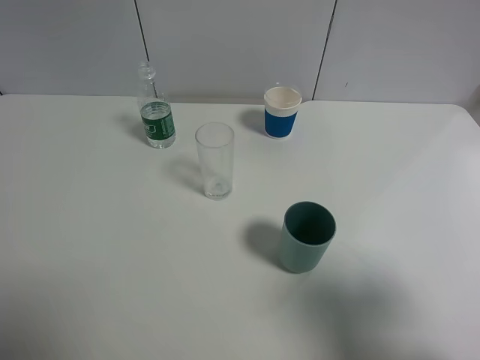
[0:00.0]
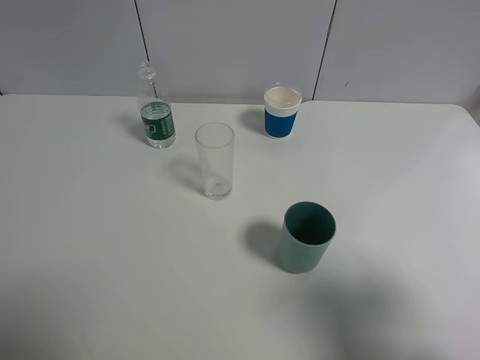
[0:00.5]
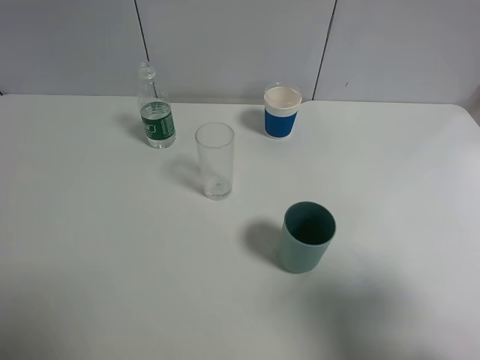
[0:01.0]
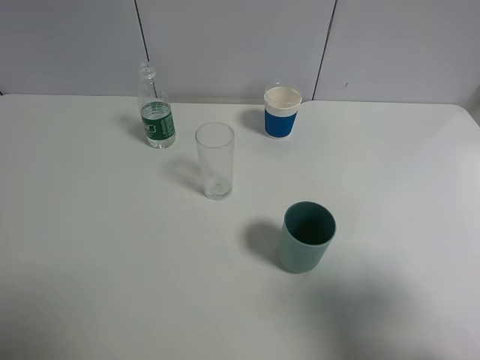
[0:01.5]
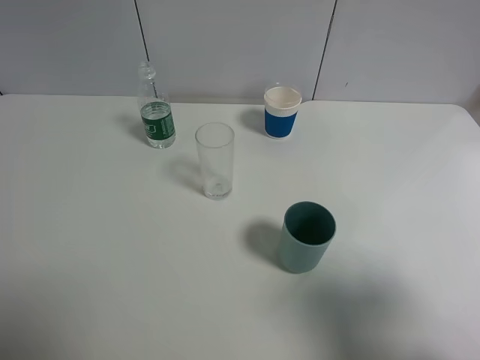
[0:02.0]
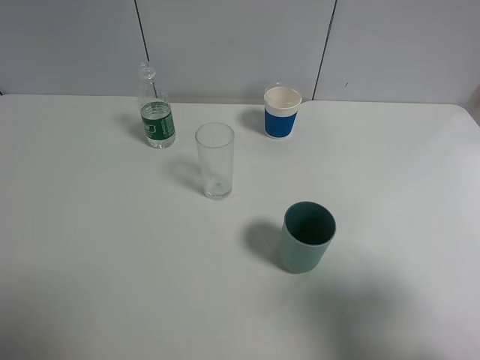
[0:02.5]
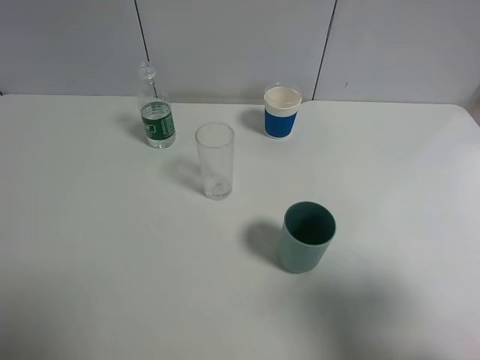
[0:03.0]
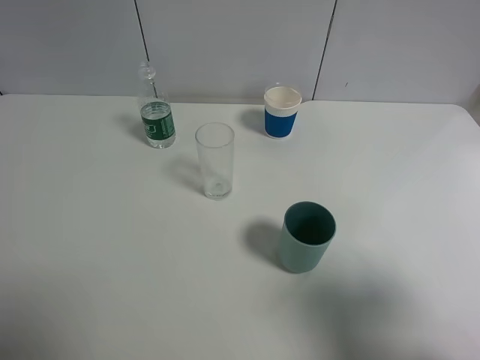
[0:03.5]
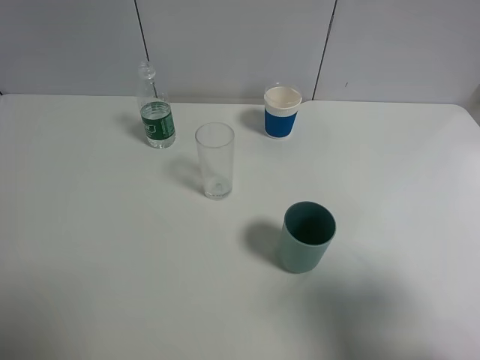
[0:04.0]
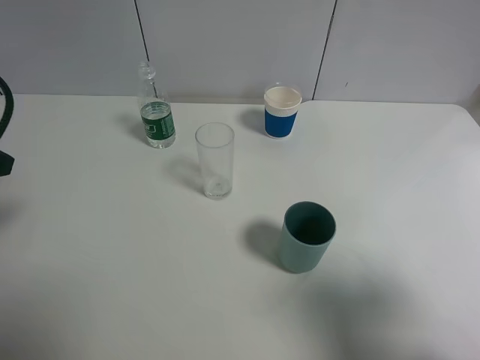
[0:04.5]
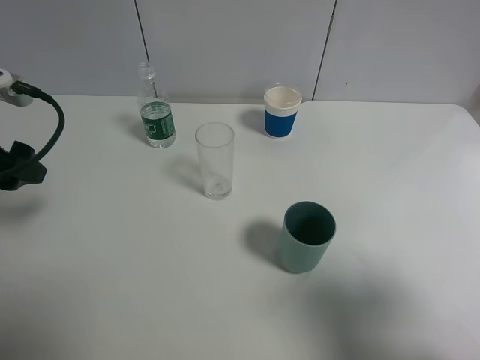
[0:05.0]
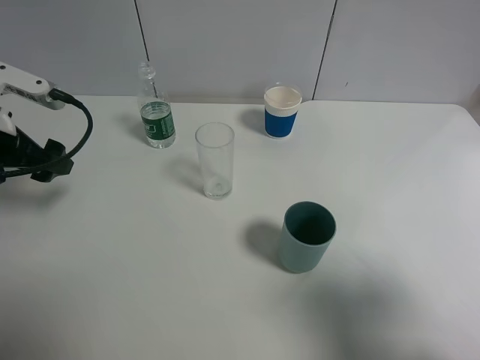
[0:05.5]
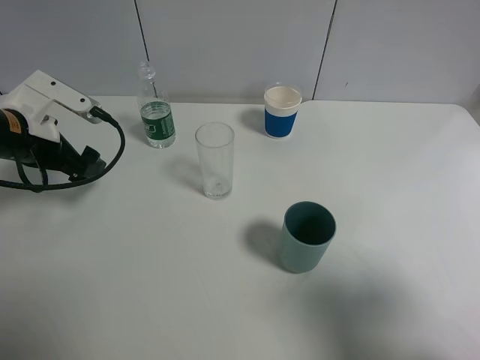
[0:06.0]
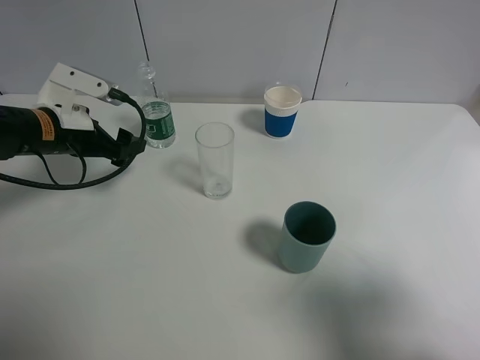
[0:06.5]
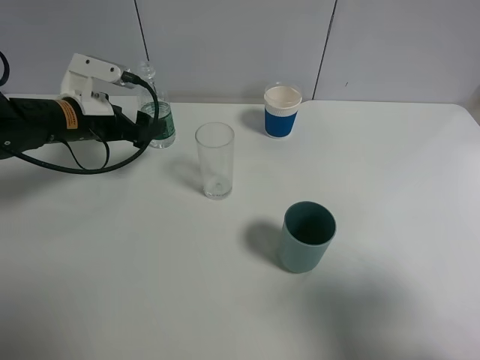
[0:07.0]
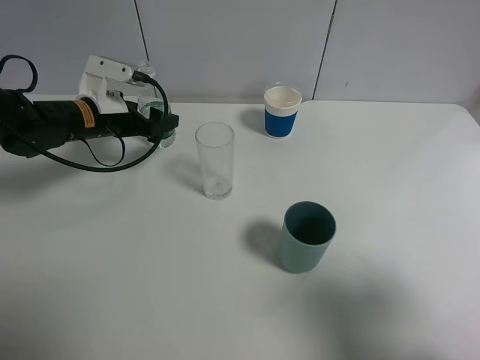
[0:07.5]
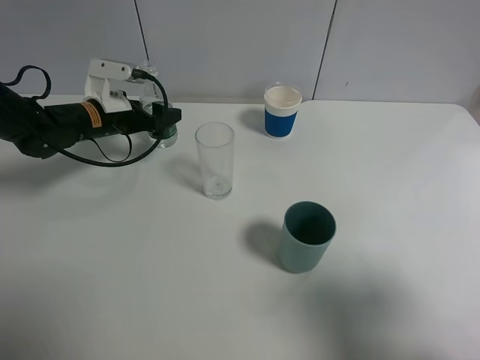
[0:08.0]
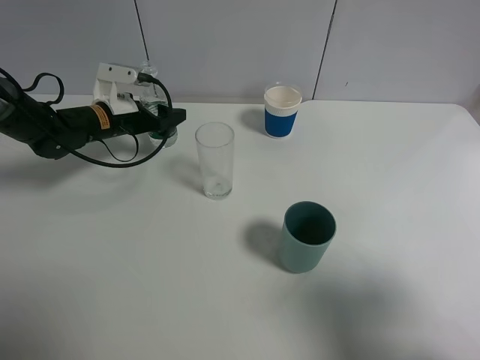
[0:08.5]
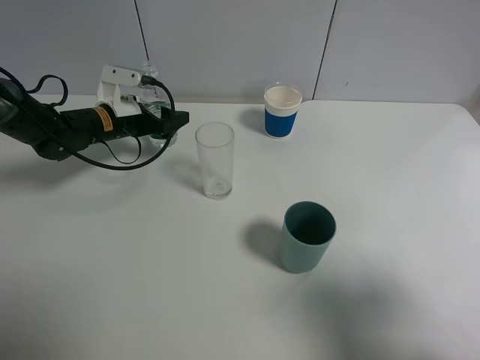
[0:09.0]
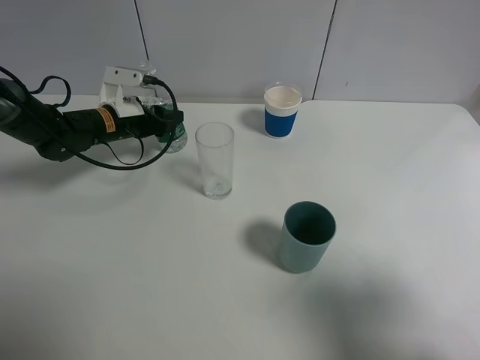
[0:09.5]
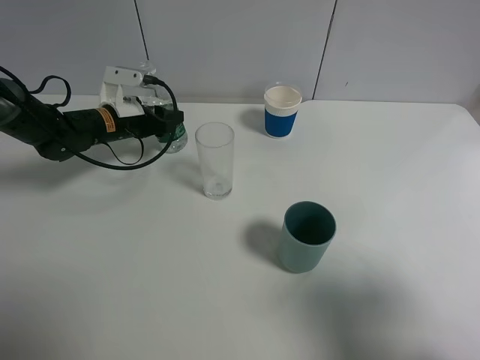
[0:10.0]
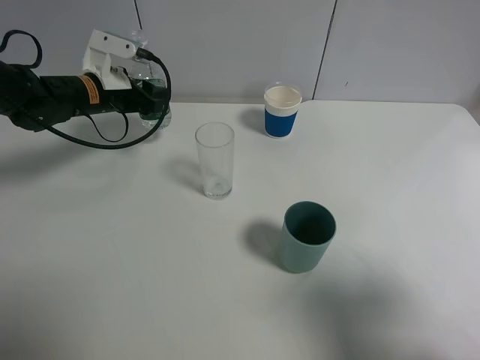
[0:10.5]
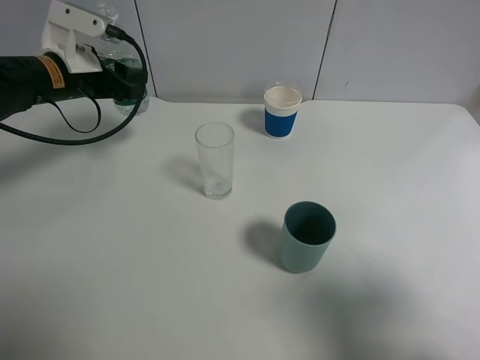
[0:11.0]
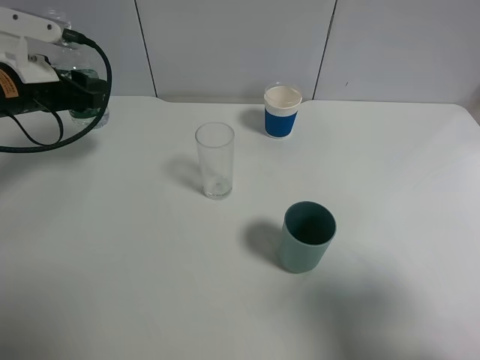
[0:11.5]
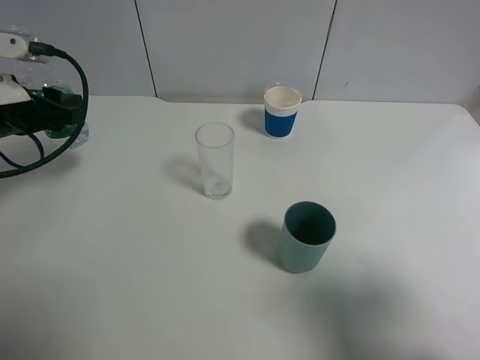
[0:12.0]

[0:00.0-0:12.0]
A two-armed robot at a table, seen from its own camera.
Task of the whole recording: use a gripper to hold the bottle of the drink and pour it into a random cup.
Step, 0:00.0 to 0:09.5: Grasp the mineral water bottle with the left gripper.
0:00.0 to 0:02.0: Both grippers stay put.
0:04.0 to 0:06.0: The left gripper shifts approximately 20 cm forward and downward.
0:06.0 to 0:08.0: The left gripper goes roughly 10 cm forward and downward.
0:08.0 to 0:10.0: The left gripper closes.
0:10.0 to 0:12.0: The left gripper heads backward, upward and to the left, covering about 20 cm.

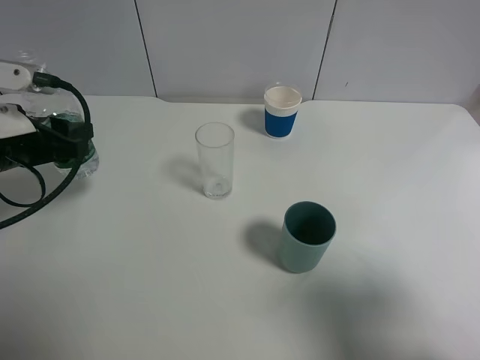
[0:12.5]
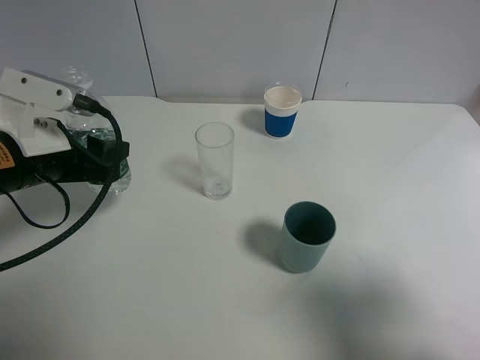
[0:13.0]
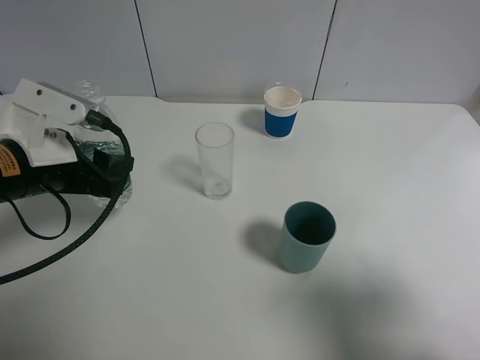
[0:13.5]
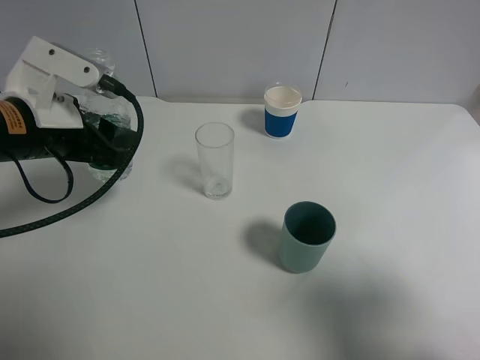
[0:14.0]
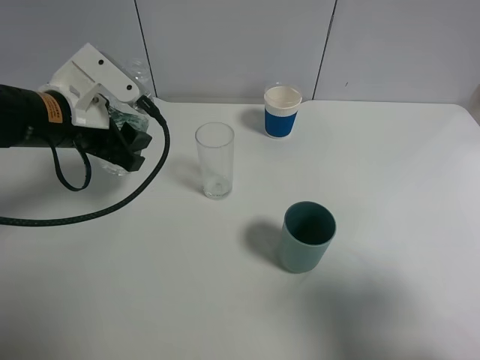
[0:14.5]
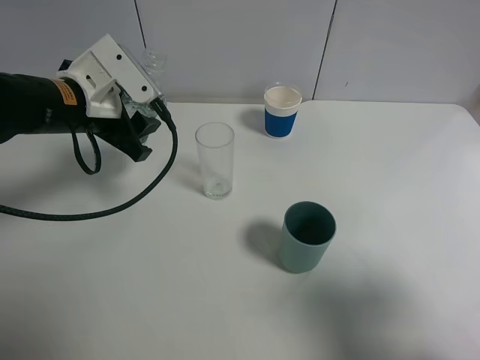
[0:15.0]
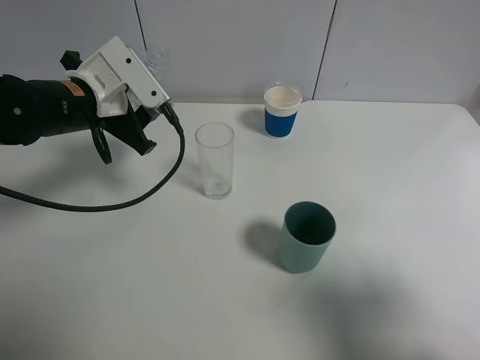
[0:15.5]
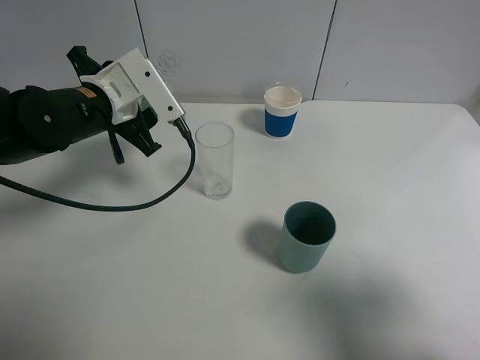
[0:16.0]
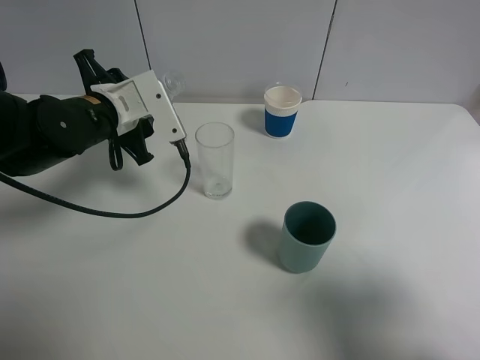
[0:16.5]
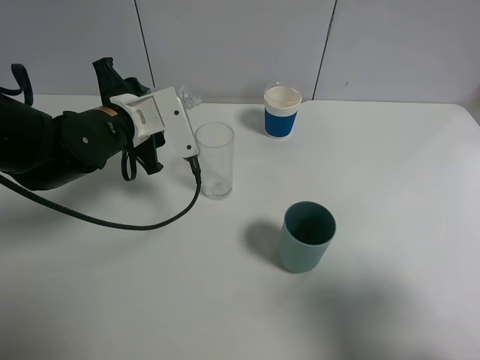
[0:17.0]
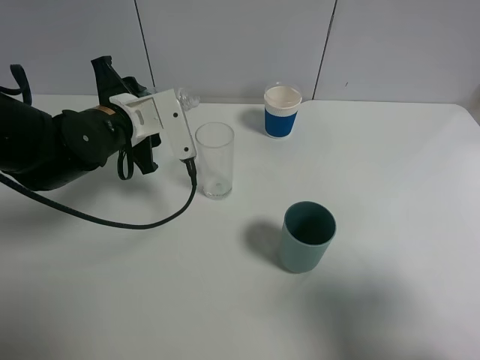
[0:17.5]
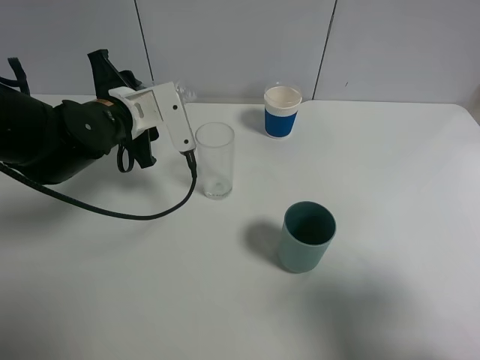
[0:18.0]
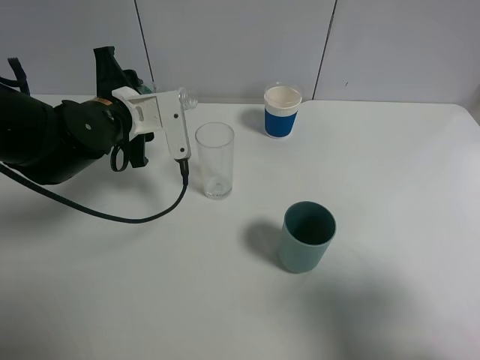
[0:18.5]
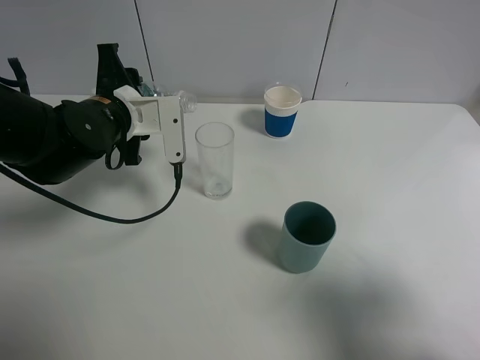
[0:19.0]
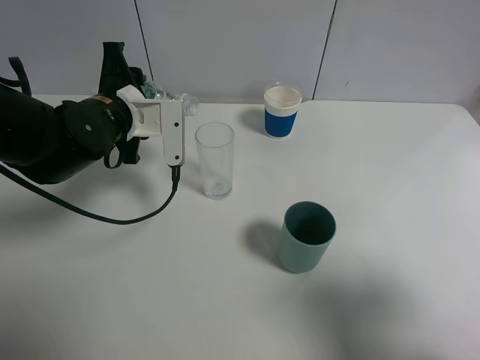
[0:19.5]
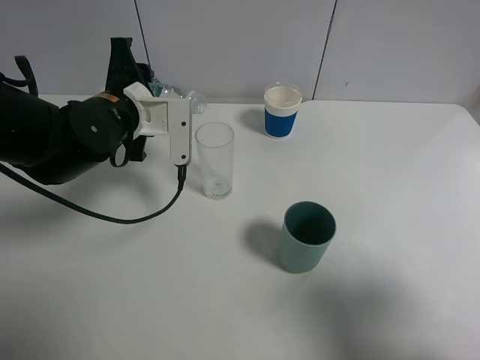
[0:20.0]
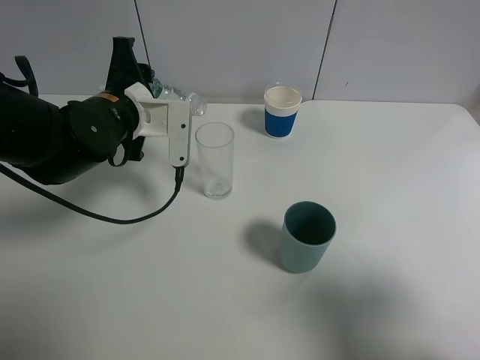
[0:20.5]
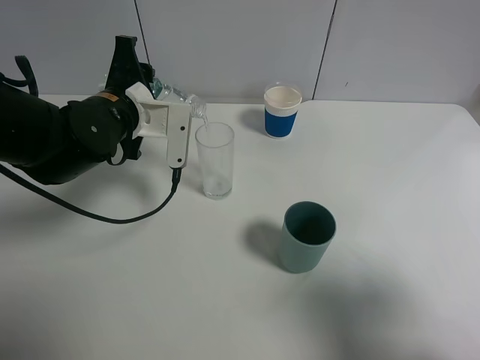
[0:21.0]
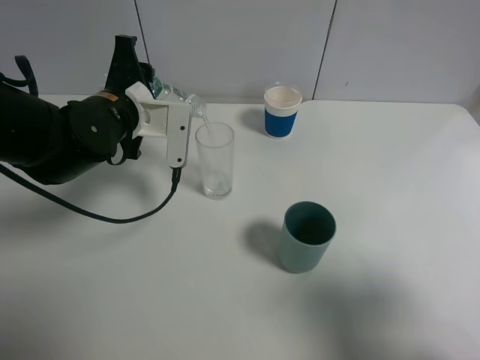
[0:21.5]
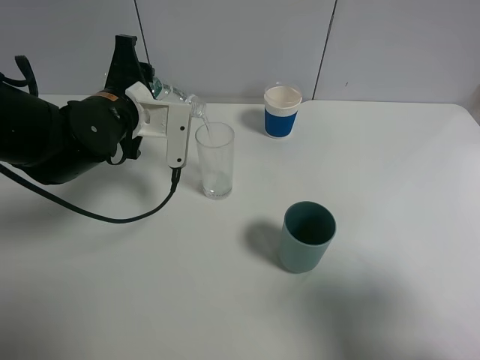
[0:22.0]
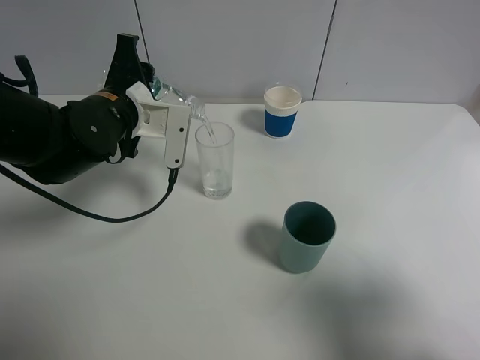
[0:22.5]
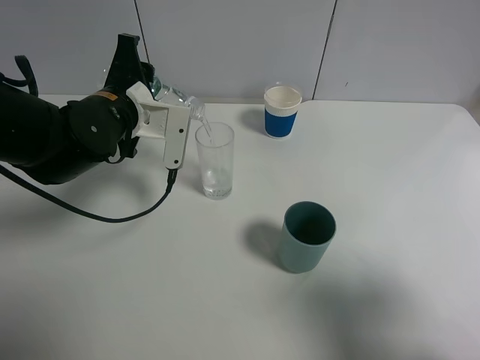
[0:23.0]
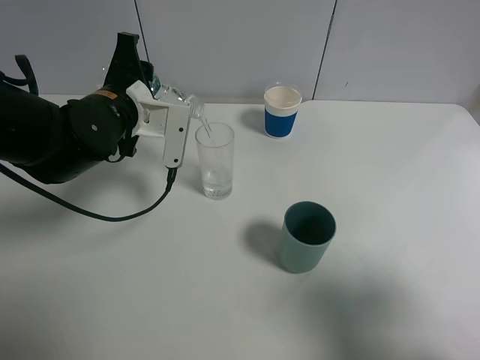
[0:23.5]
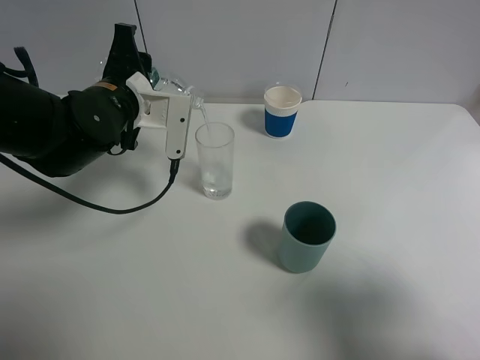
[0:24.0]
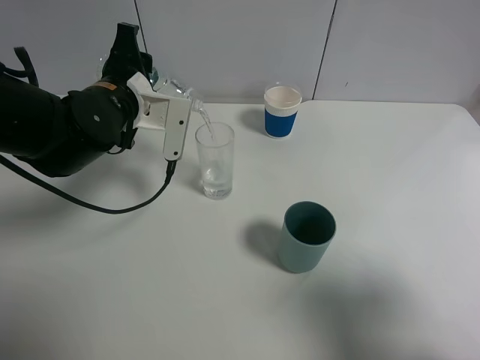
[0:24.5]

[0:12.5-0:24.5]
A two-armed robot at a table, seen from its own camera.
Task of the whole recording: use a gripper to hold the bottle of the drink and pour it into a random cup.
0:12.5 to 0:14.5: The left gripper travels to the right by roughly 5 cm.
0:16.5 to 0:18.5: The grippers move only a little.
0:18.5 to 0:22.5: The grippers make only small movements.
0:22.5 to 0:24.5: Neither gripper changes place.

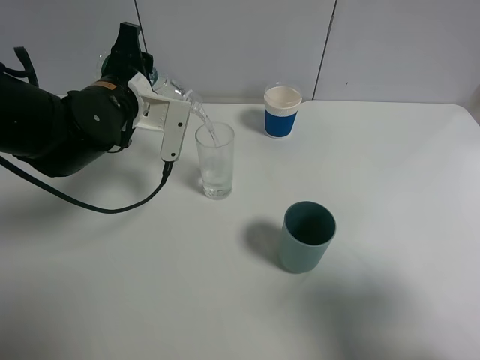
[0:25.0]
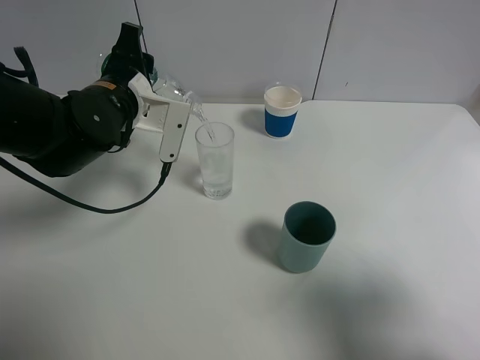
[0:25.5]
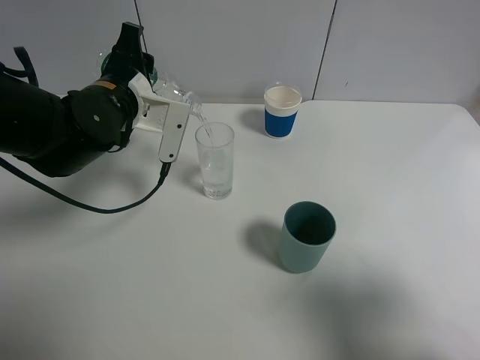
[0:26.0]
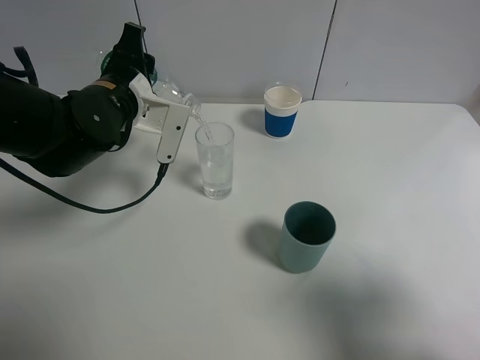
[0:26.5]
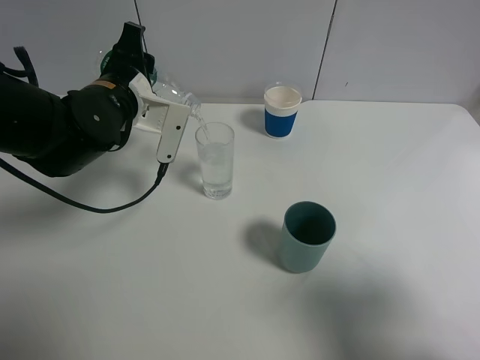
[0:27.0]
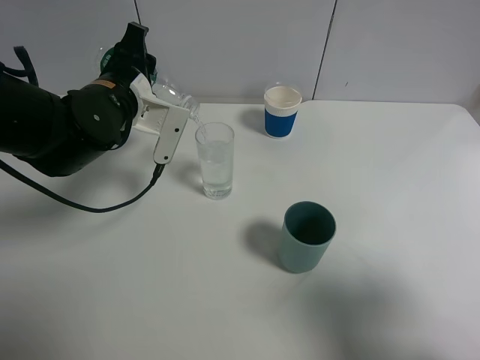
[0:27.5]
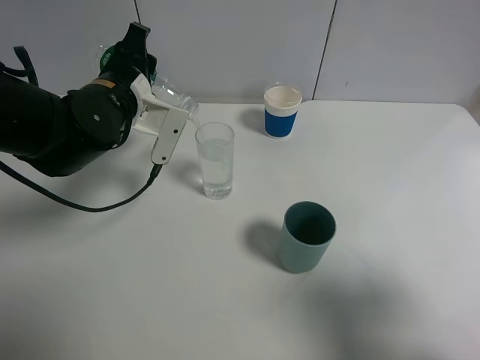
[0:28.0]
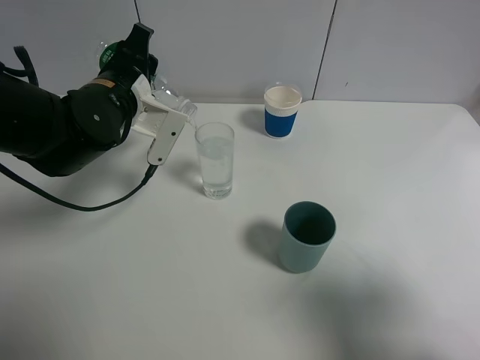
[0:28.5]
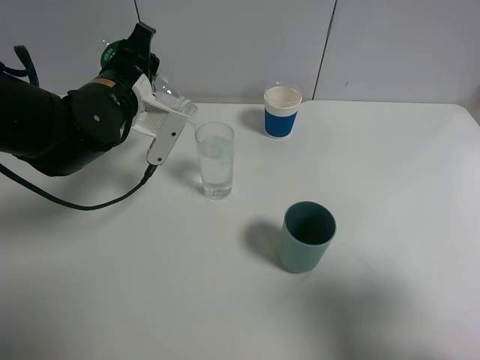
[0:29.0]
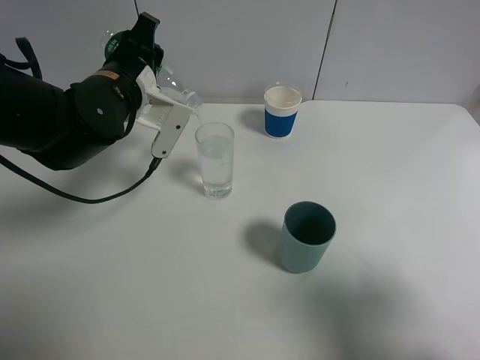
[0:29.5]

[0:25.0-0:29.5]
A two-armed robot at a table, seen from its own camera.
Task of the whole recording: use a gripper to hold the bottle of the drink and pour it into a random cup.
0:25.0 to 0:27.0: Both grippers stay put.
0:27.0 to 0:29.5: The grippers make only small movements.
